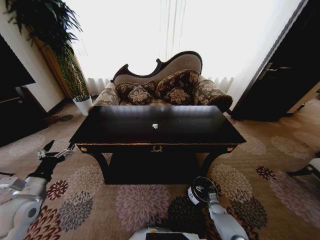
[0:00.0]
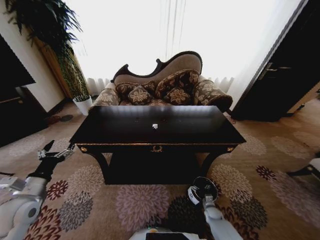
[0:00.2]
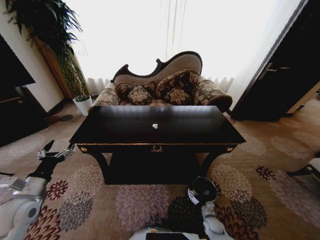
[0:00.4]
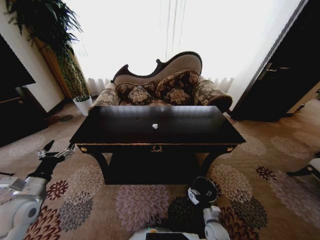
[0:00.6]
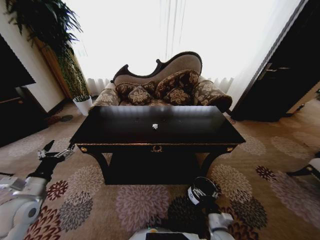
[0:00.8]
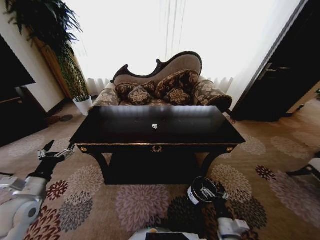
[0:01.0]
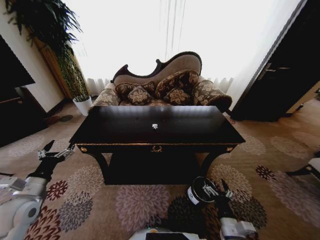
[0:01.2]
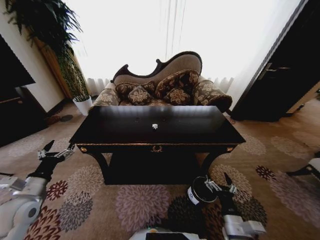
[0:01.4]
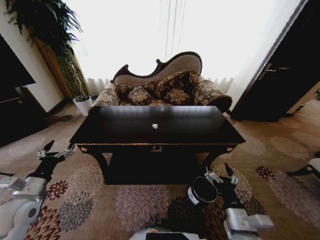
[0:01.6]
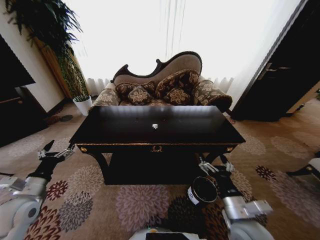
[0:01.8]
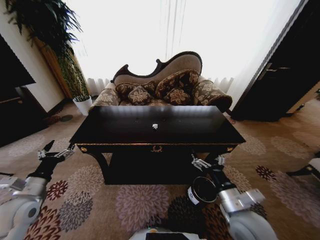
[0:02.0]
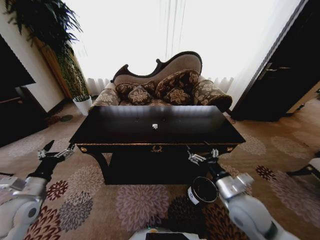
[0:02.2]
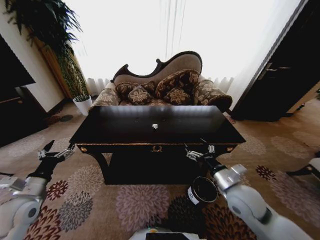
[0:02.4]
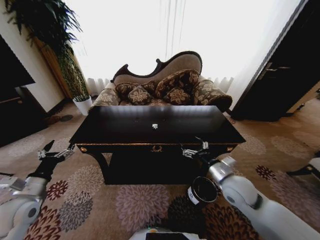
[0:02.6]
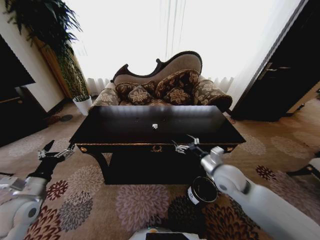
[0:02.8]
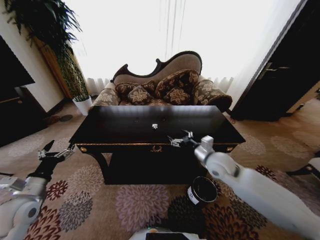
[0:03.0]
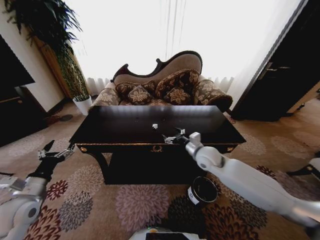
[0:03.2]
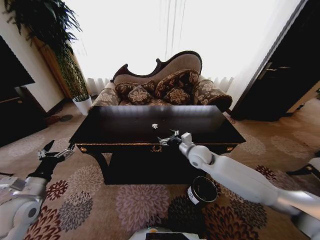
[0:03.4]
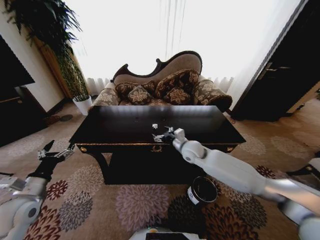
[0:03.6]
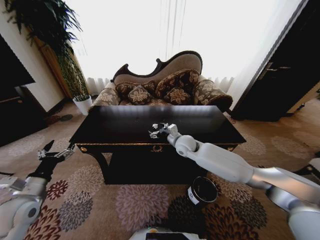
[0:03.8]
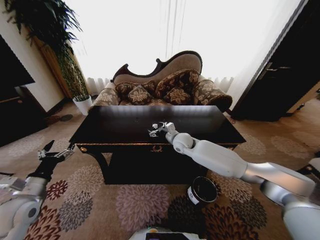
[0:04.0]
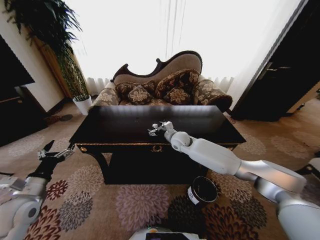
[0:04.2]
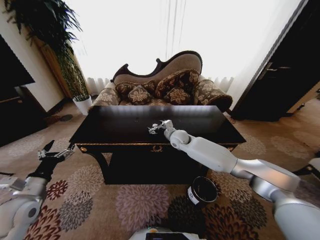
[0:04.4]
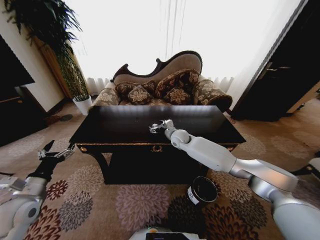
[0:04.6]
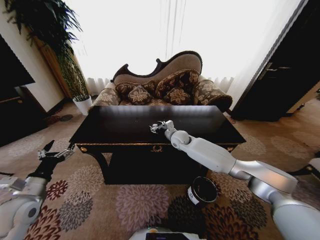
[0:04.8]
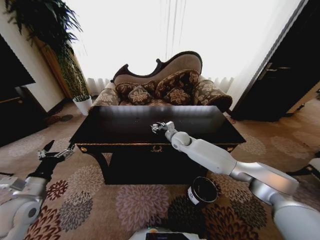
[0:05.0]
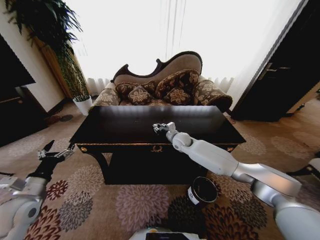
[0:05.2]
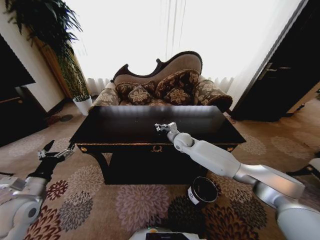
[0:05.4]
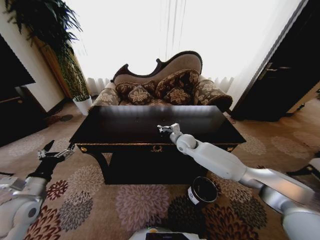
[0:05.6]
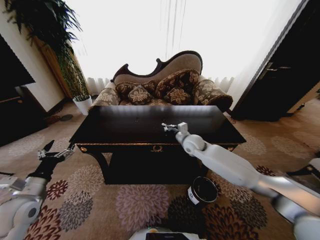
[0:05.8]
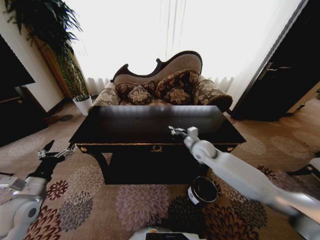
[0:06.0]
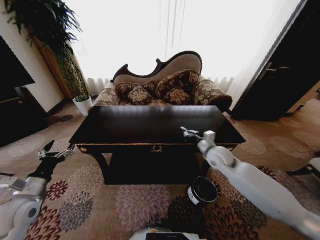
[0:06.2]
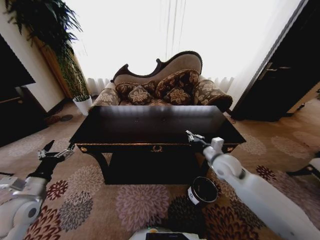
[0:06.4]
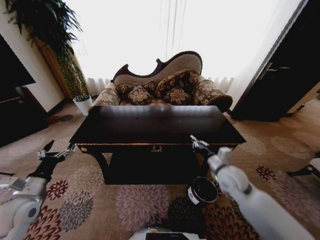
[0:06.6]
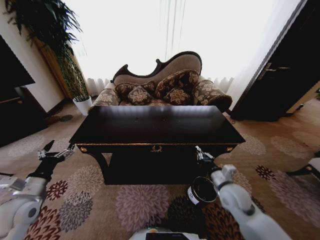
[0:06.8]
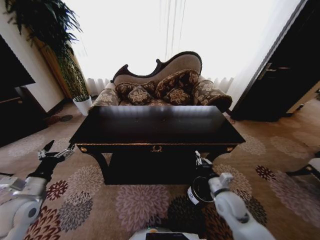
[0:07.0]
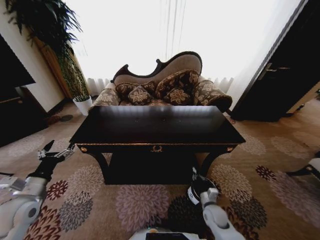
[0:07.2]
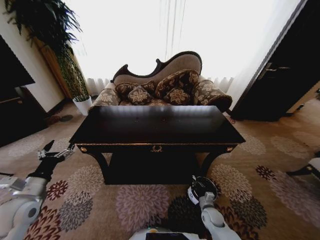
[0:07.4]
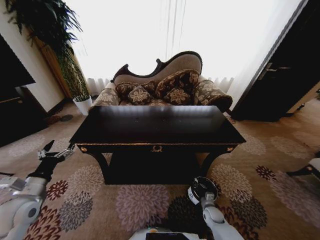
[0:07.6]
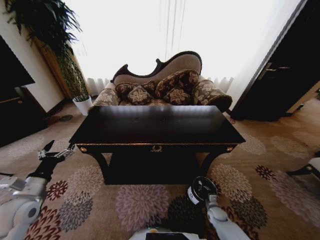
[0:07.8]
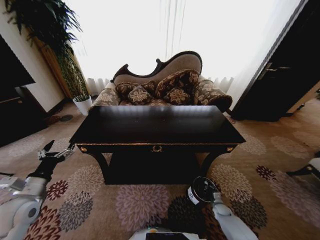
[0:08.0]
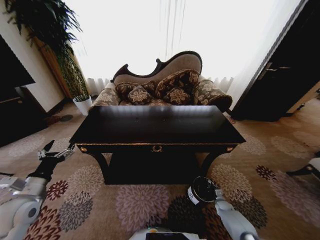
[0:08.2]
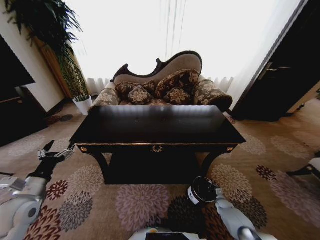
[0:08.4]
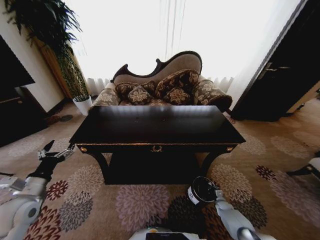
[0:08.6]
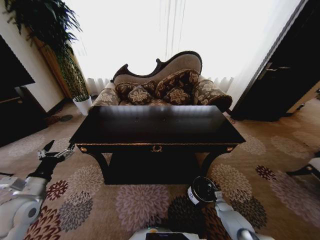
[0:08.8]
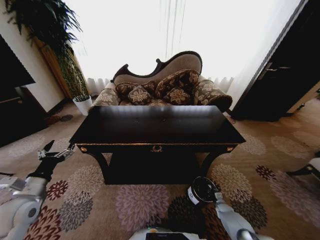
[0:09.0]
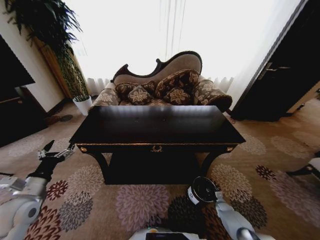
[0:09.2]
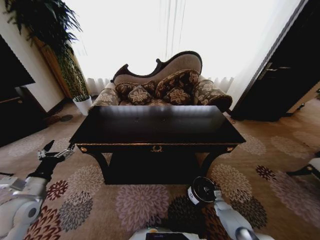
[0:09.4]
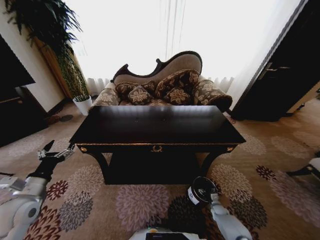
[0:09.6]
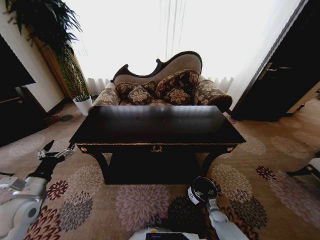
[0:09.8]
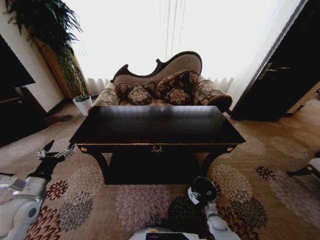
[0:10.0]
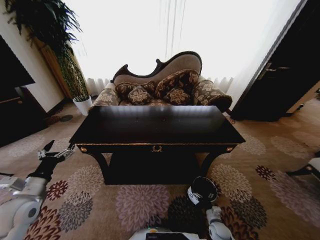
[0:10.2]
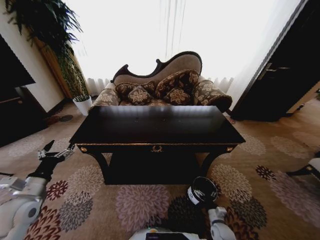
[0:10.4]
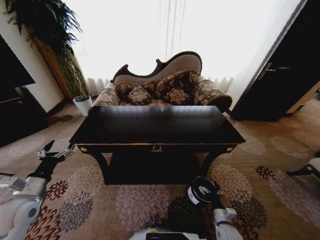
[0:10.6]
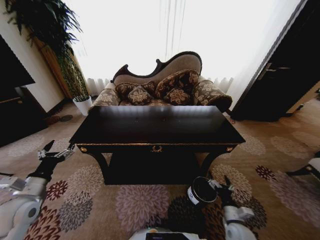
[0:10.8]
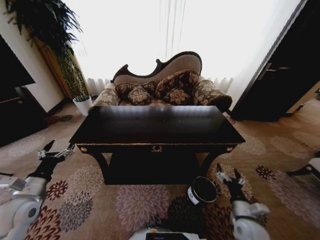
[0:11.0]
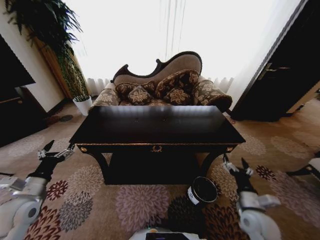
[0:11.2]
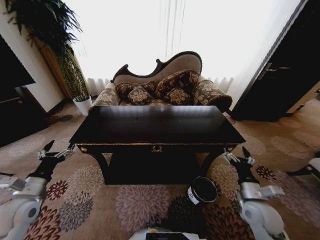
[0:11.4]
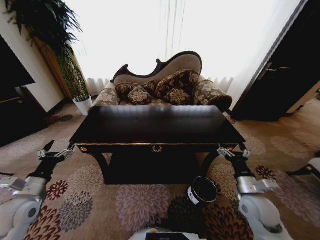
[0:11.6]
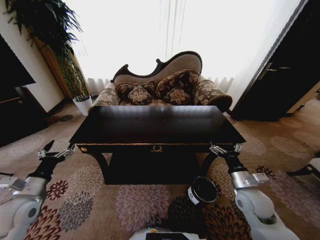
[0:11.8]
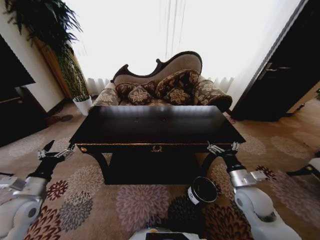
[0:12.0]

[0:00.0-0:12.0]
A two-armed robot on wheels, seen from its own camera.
Task of the whole recording: Move to the front of the table and place the trash on the table into the trash bin.
0:00.0 to 0:01.6: The right gripper moves upward and backward, about 40 cm.
0:01.6 to 0:03.0: The right gripper moves forward and upward, approximately 25 cm.
0:03.0 to 0:04.4: The right gripper is displaced forward and to the left by roughly 20 cm.
0:04.4 to 0:06.0: The right gripper travels to the right and backward by roughly 15 cm, and closes.
0:06.0 to 0:07.6: The right gripper moves downward and backward, approximately 40 cm.
0:07.6 to 0:09.0: The right gripper heads to the right and downward, covering some 15 cm.
0:09.0 to 0:10.4: The right gripper shifts roughly 20 cm to the left, backward and upward, and opens up.
0:10.4 to 0:12.0: The right gripper travels upward by some 30 cm.

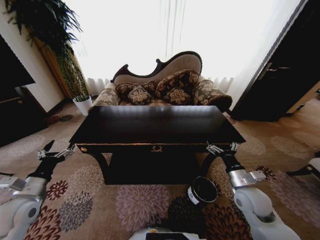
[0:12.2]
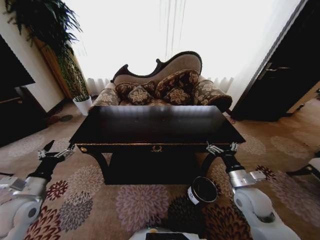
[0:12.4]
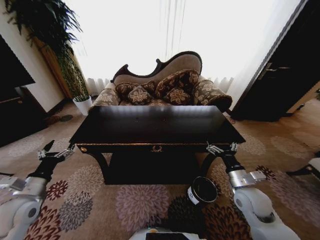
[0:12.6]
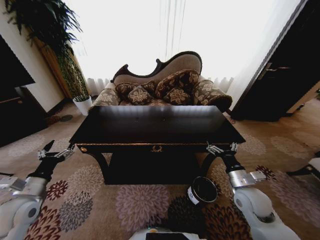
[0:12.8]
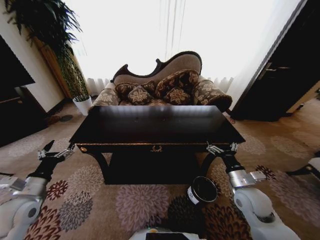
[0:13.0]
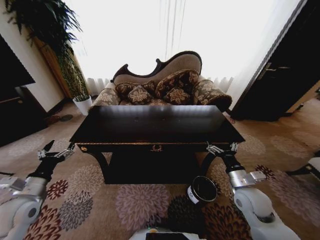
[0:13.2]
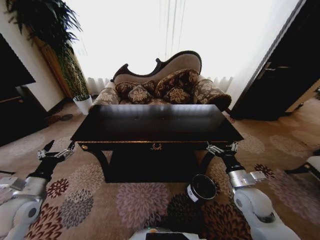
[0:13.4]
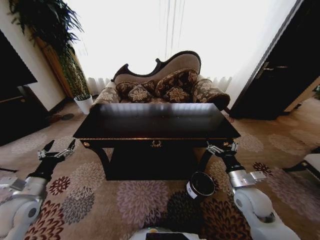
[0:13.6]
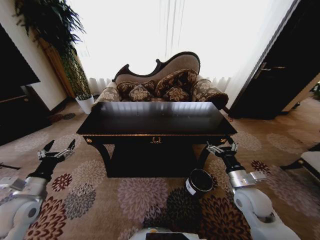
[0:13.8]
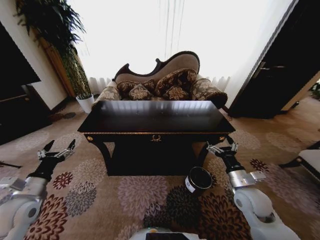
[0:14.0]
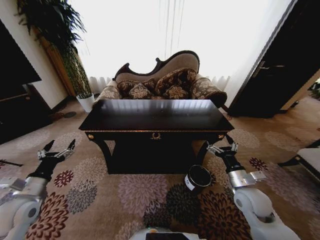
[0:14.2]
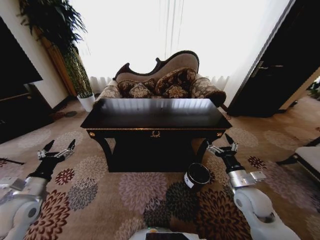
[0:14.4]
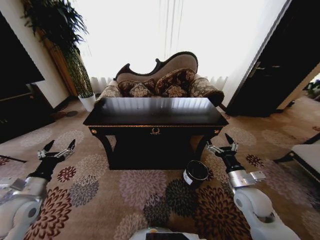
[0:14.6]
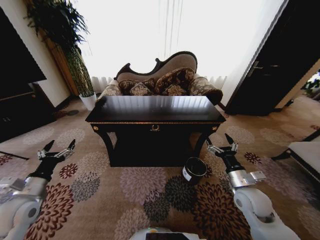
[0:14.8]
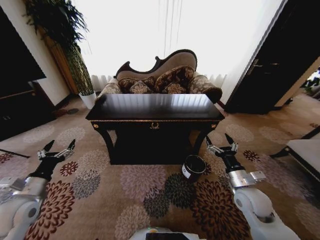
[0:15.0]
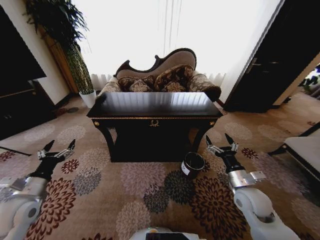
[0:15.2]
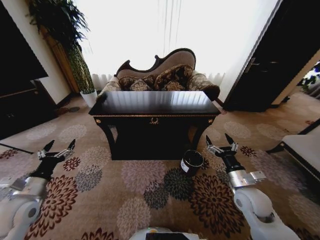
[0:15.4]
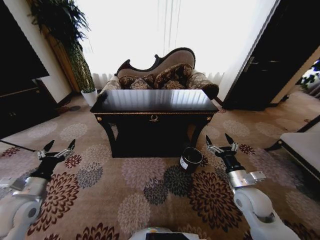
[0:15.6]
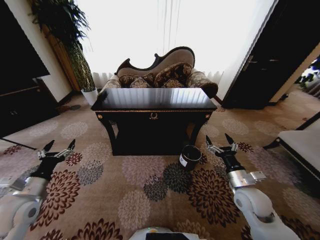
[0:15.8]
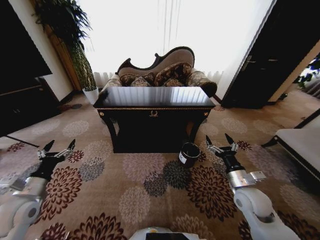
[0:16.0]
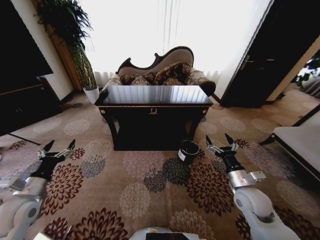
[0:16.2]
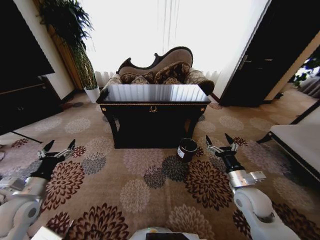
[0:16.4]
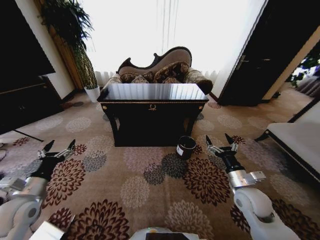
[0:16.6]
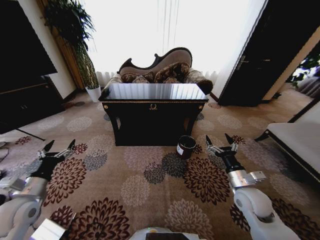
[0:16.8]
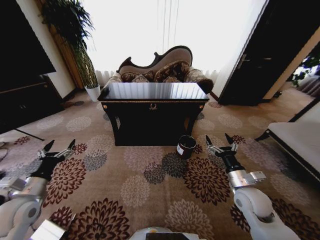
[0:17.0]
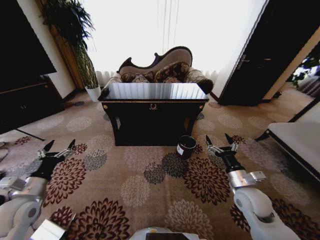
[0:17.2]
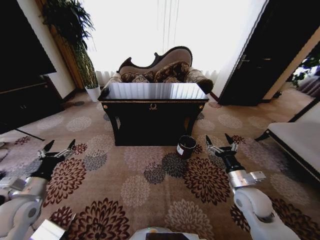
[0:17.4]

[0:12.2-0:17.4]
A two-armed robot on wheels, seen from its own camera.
Task of the whole recording: Move to the front of the table and place the trash on the table into the trash bin.
0:12.2 to 0:14.0: Neither gripper changes place.
